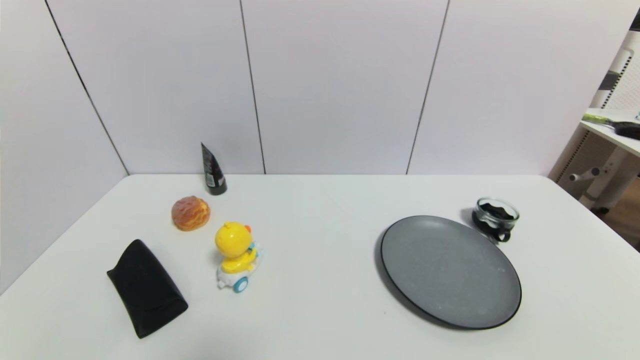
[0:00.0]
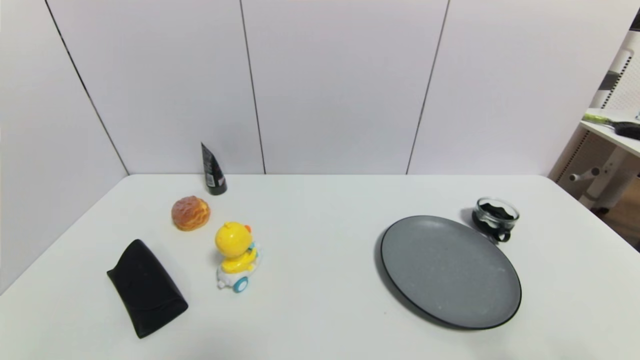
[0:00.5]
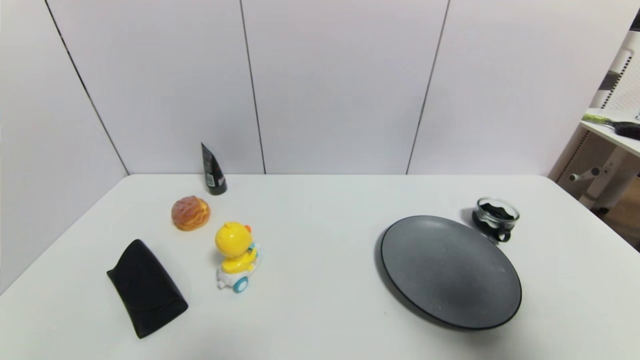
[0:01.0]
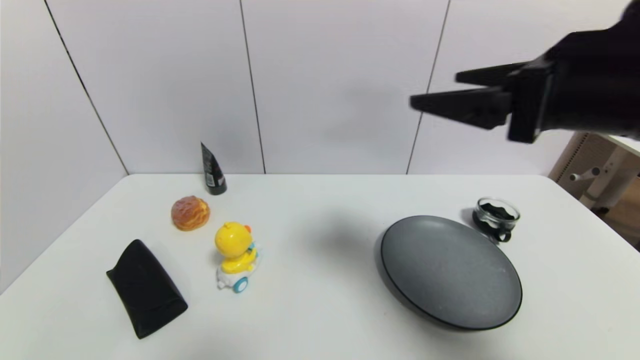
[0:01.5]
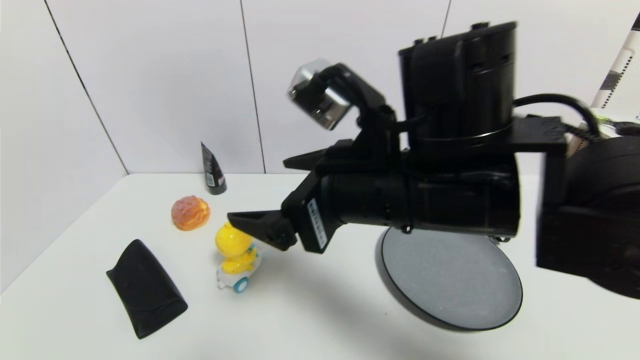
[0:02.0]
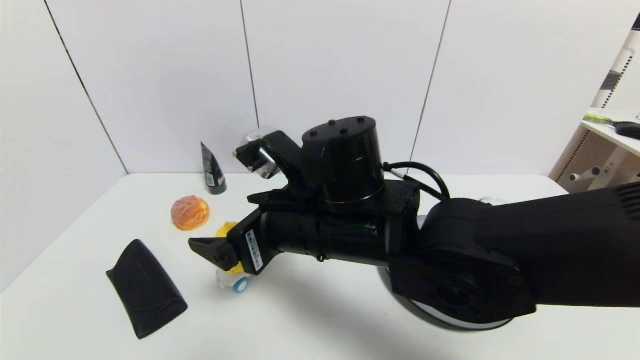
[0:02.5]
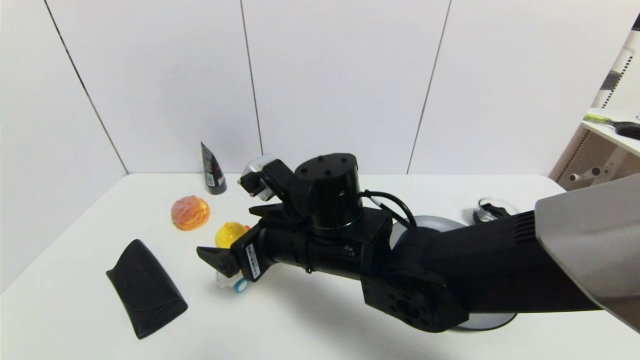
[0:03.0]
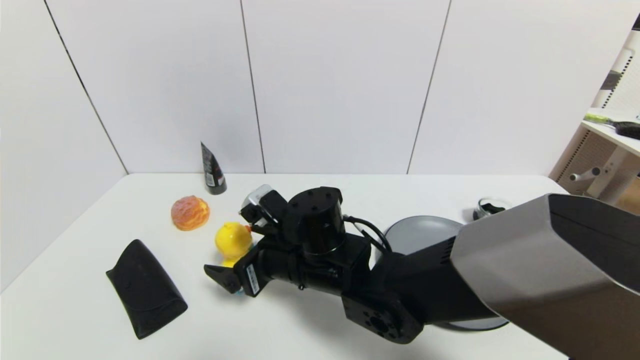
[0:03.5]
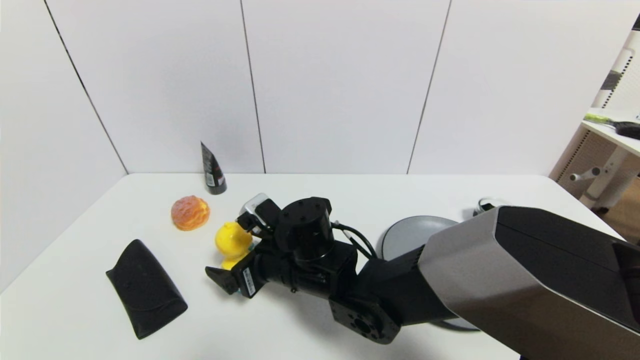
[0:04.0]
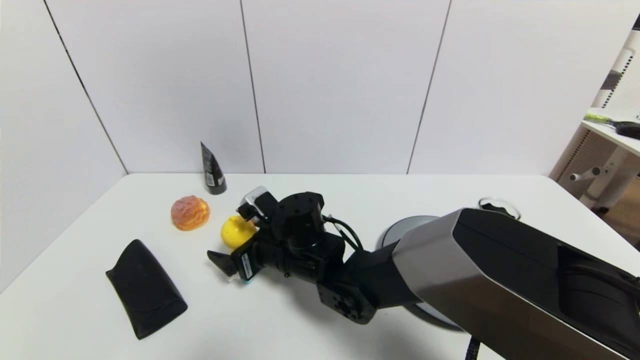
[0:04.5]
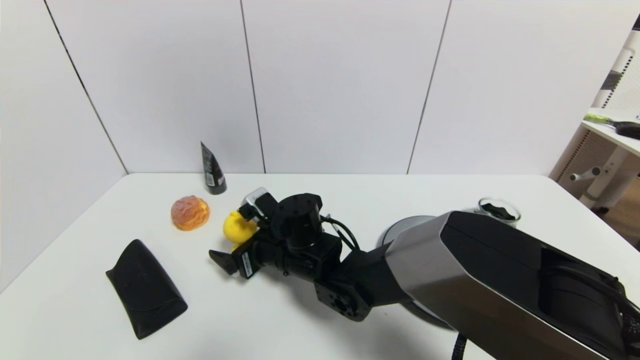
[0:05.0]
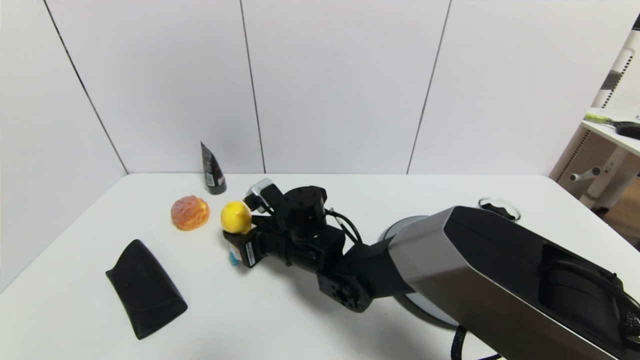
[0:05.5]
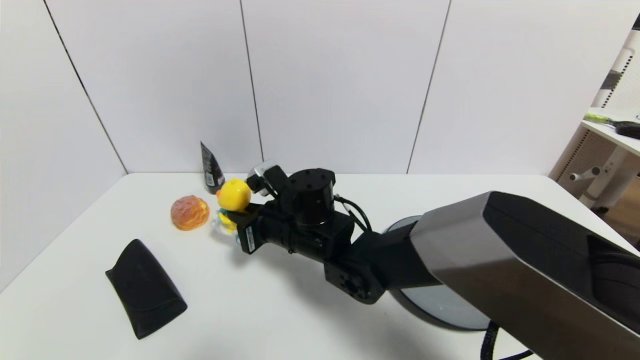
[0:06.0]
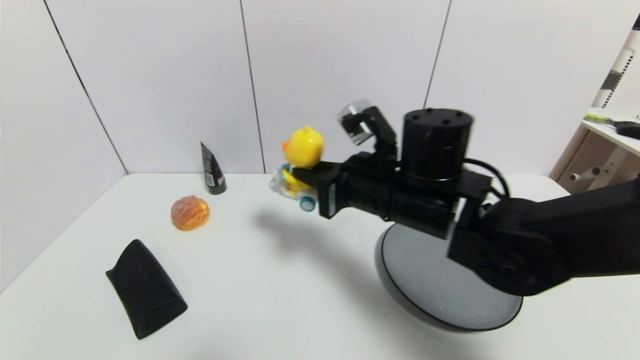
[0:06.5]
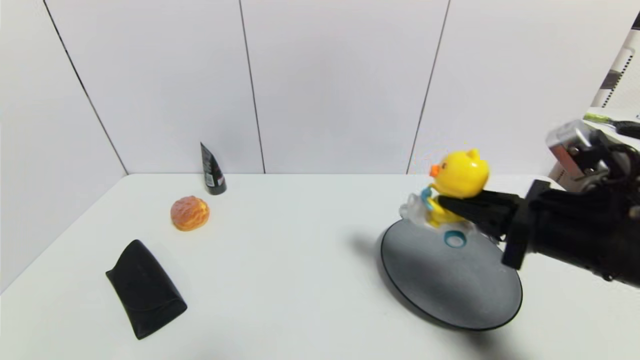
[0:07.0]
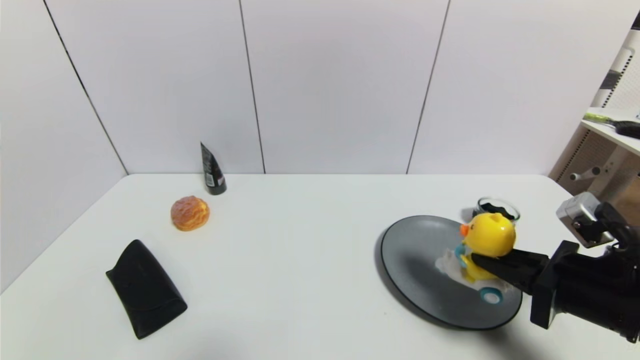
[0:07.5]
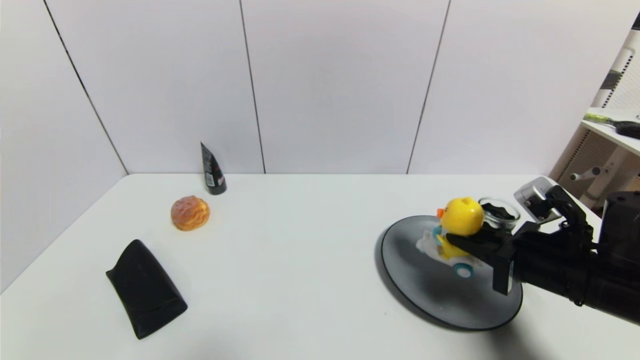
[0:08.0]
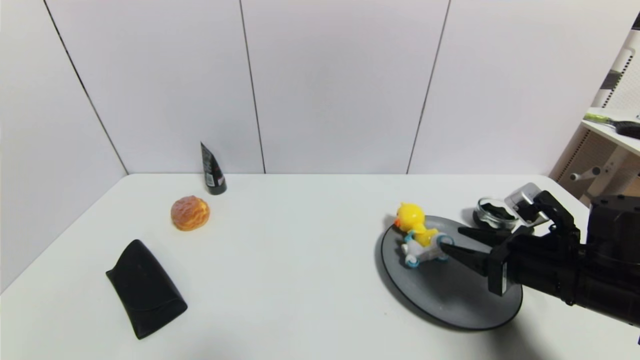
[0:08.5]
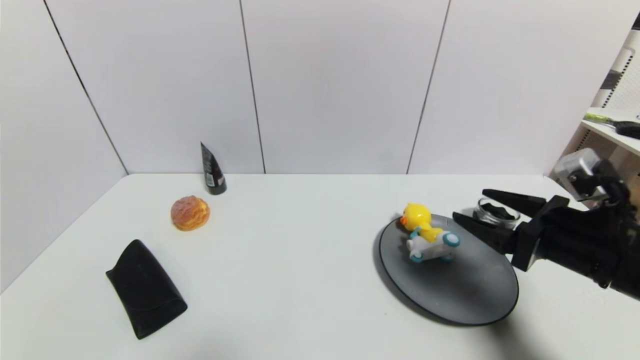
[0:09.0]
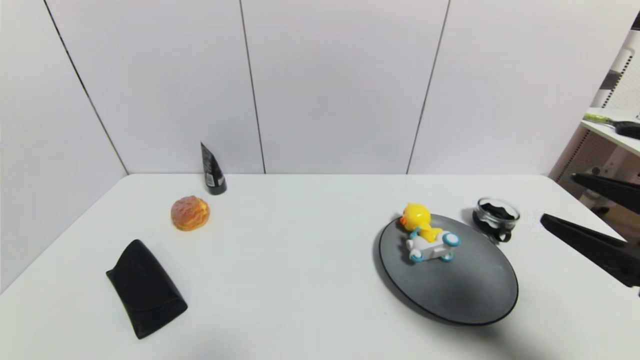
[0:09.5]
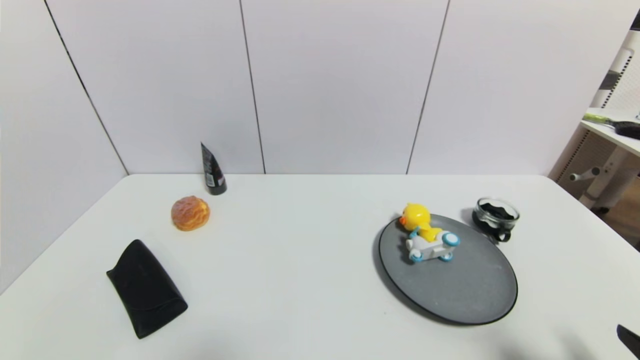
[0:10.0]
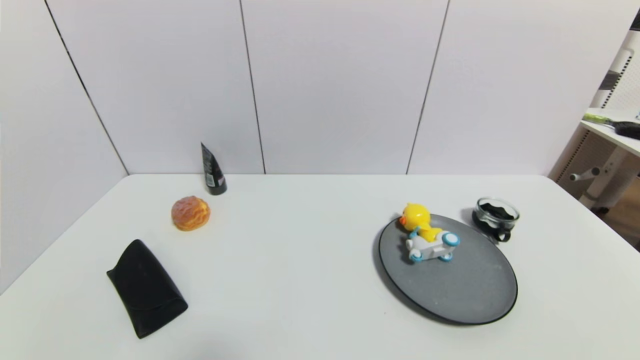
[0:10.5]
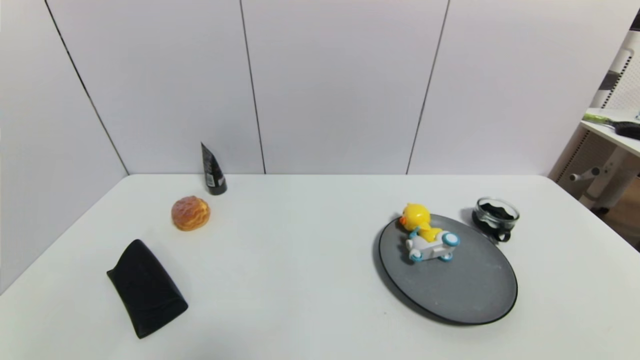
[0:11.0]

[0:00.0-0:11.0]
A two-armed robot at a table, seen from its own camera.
Task of the whole recording: use a gripper to pick the target object and place on the gray plate.
Step, 0:00.0 to 0:05.5: Grasp the duck toy with the right gripper.
Step, 0:06.0 to 0:08.5: Place the duck toy on the gray plate with the right gripper.
0:00.0 to 0:02.0: The right gripper is displaced to the left, forward and upward by roughly 40 cm.
0:02.0 to 0:03.5: The right gripper travels downward and to the left by roughly 20 cm.
0:03.5 to 0:05.5: The right gripper is displaced forward by some 5 cm, and closes its fingers.
0:05.5 to 0:07.5: The right gripper is displaced to the right and backward by about 35 cm.
0:07.5 to 0:09.0: The right gripper opens its fingers.
0:09.0 to 0:11.0: The right gripper shifts approximately 25 cm backward and downward.
